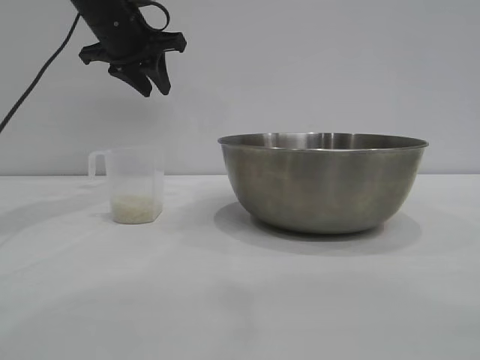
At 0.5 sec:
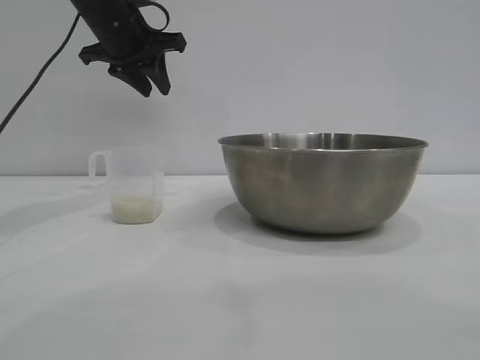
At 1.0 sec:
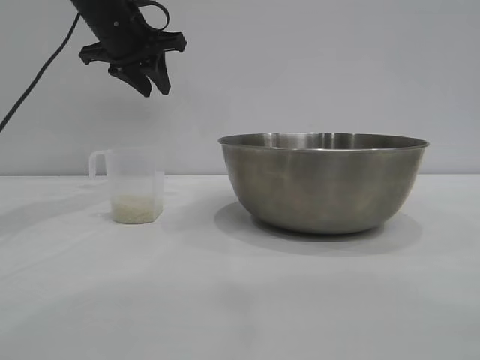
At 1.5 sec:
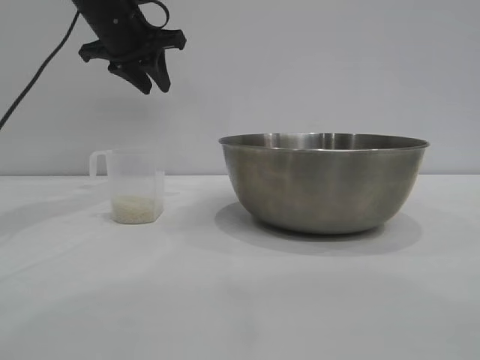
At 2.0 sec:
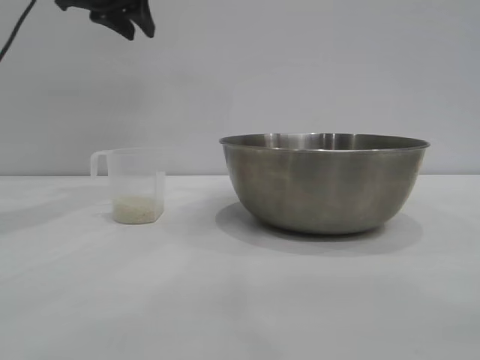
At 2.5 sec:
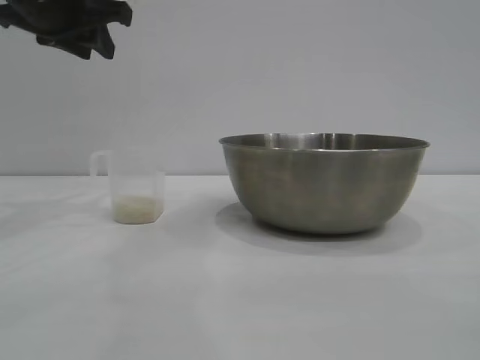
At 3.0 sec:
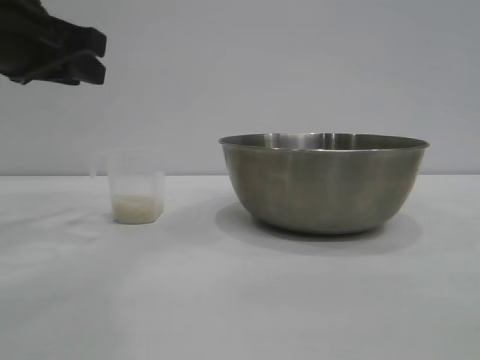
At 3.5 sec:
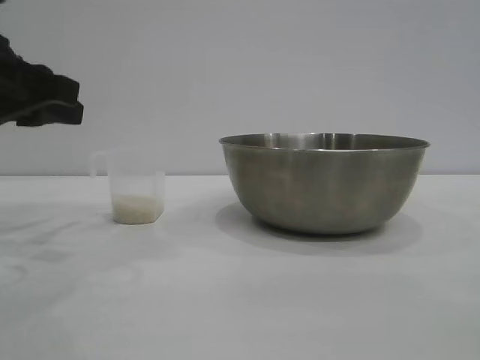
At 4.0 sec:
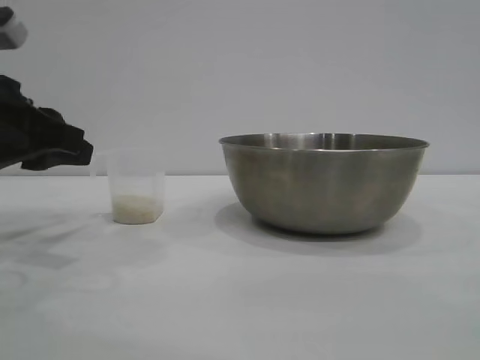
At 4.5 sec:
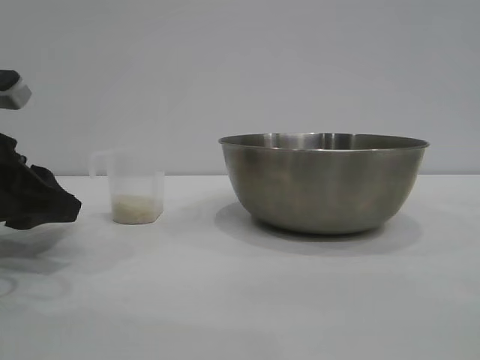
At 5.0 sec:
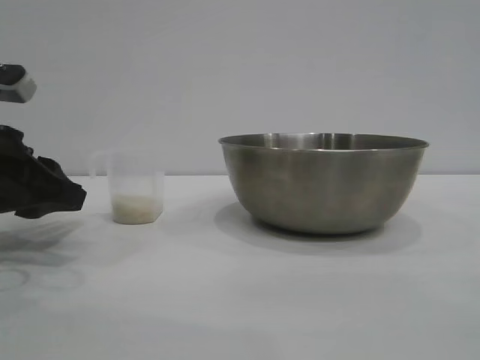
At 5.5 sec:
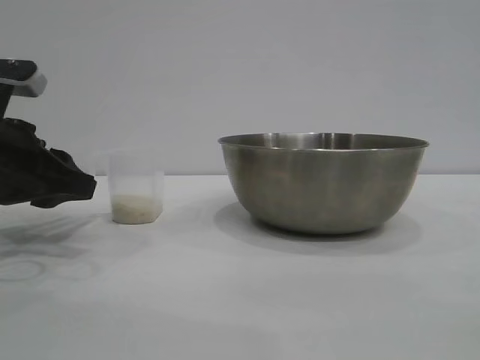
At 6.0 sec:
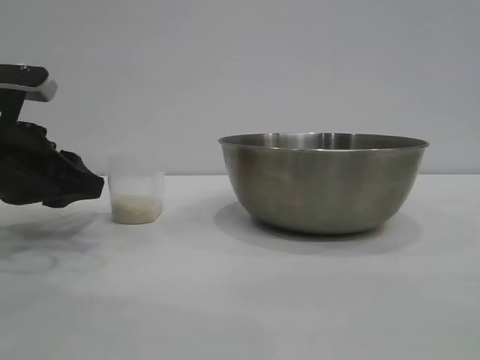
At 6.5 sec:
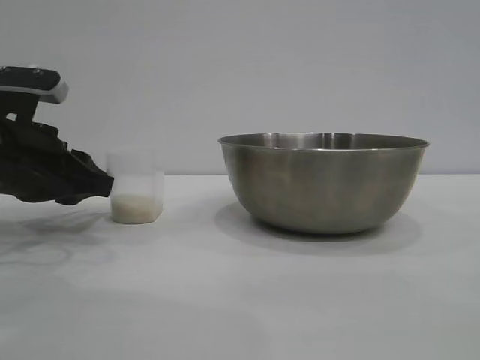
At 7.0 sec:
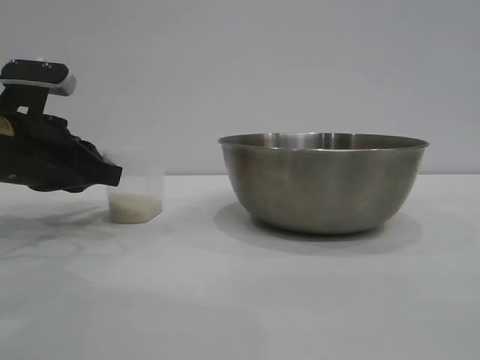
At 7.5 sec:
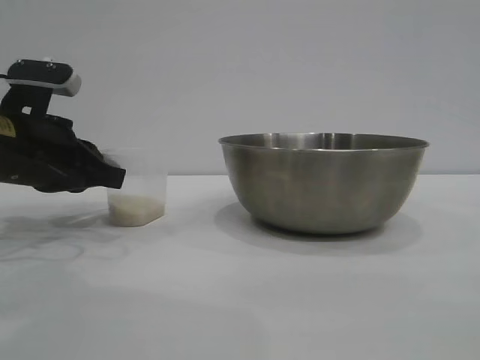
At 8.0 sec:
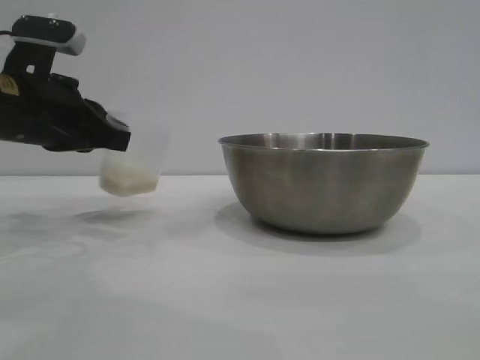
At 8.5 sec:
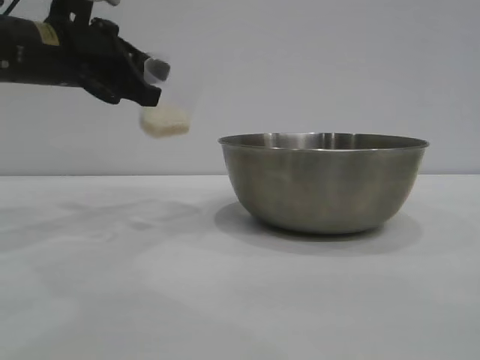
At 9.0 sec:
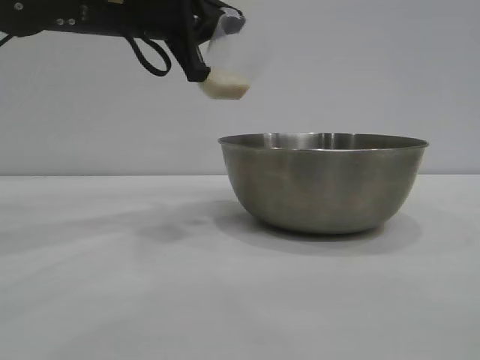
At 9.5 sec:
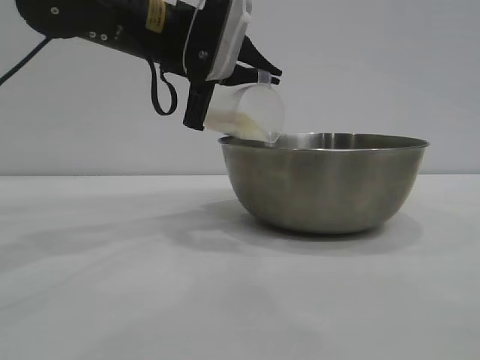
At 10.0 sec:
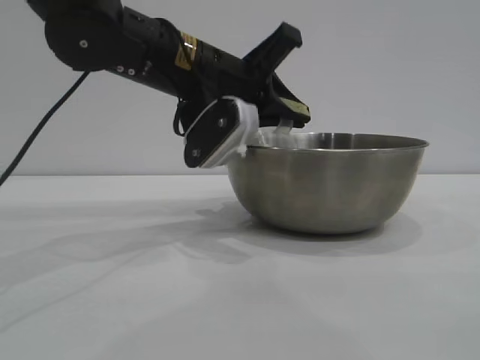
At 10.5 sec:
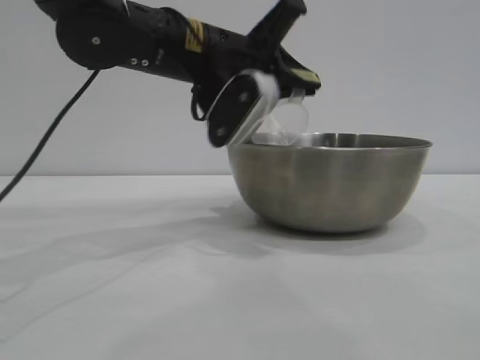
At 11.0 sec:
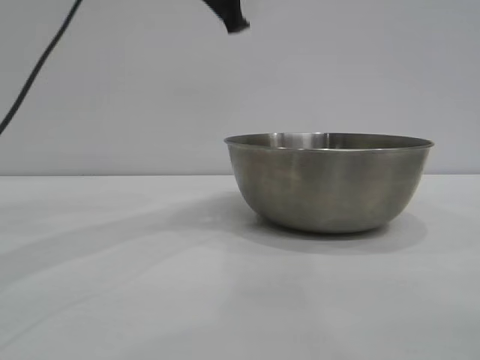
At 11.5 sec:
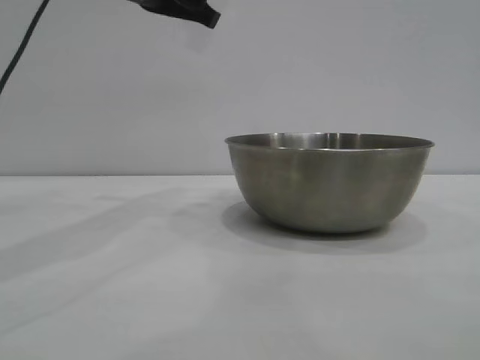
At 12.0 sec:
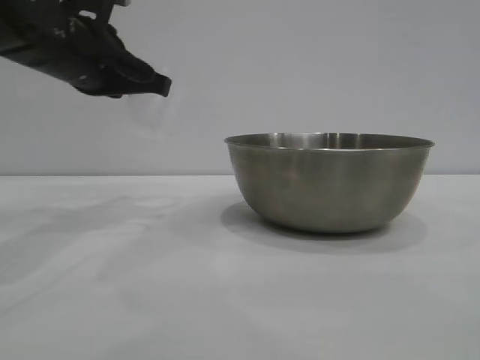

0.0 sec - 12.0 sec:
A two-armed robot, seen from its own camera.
Task of the whole recording: the right gripper grasp the rice container and place it in the center of the table, the left gripper grasp the rice scoop and pour the rice into the rice container.
Step, 0.0 sec - 8.0 sec: Pick up the cup with rice in it with the left gripper.
Step, 8.5 sec - 10.5 sec: Pour the rice from the cup into the bowl with the left gripper.
